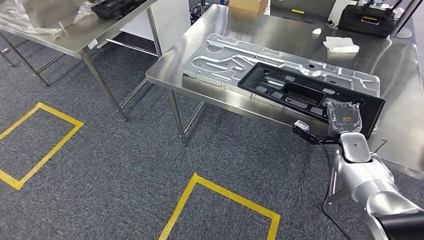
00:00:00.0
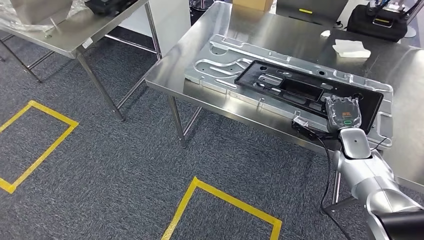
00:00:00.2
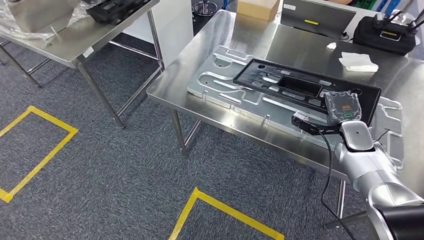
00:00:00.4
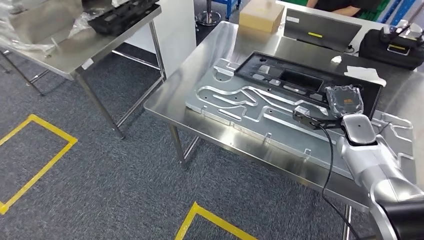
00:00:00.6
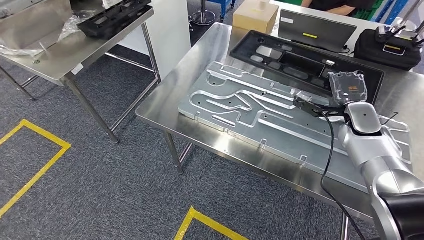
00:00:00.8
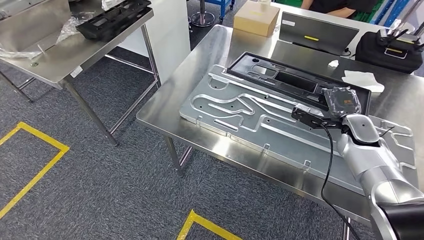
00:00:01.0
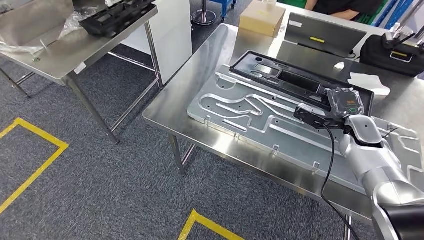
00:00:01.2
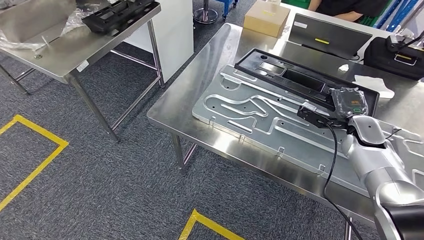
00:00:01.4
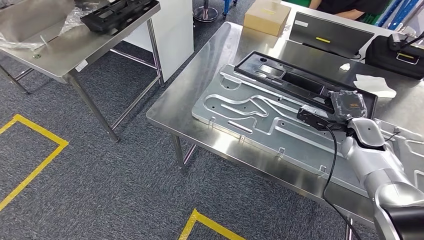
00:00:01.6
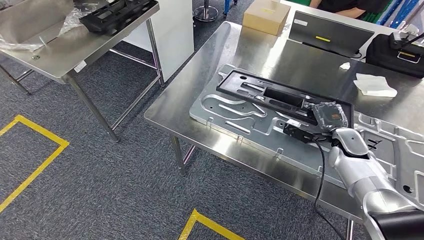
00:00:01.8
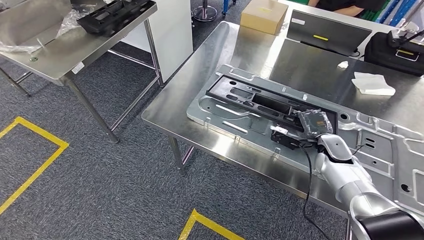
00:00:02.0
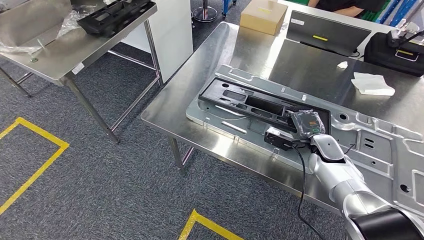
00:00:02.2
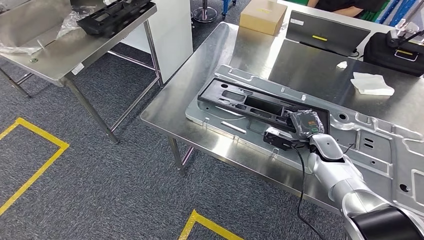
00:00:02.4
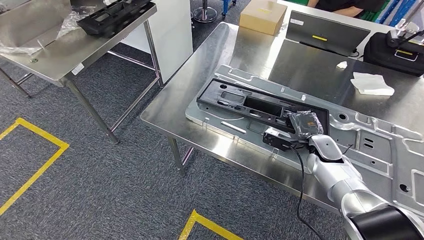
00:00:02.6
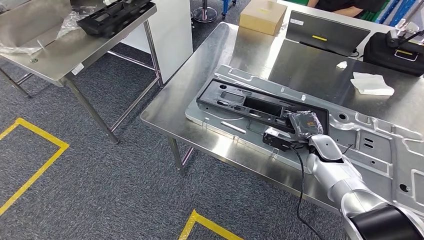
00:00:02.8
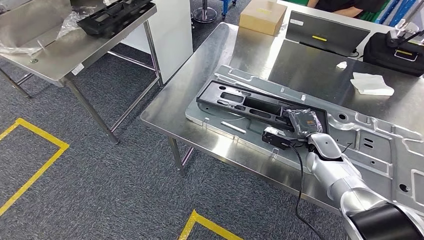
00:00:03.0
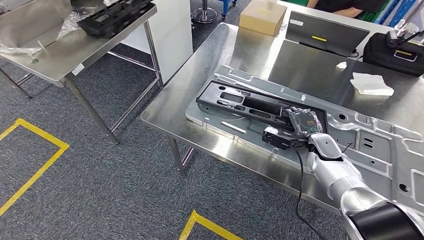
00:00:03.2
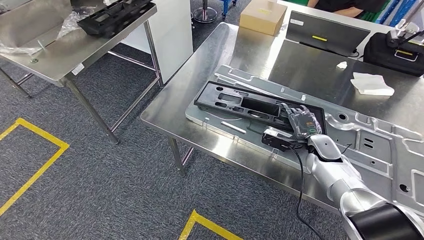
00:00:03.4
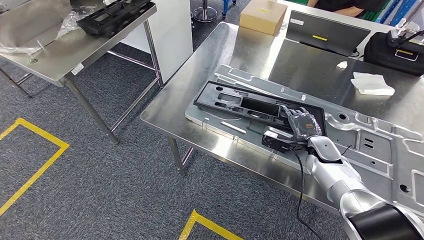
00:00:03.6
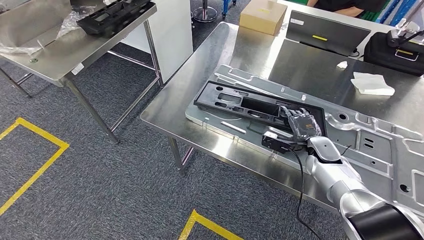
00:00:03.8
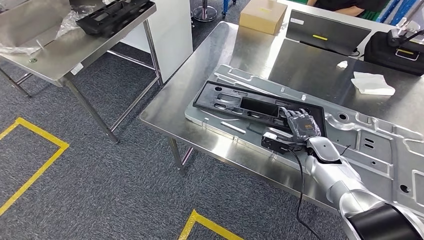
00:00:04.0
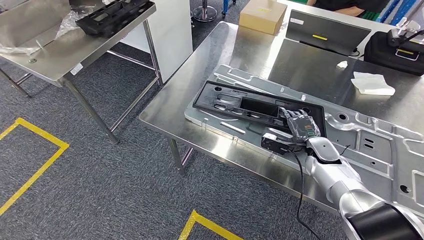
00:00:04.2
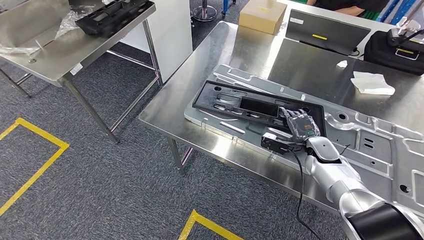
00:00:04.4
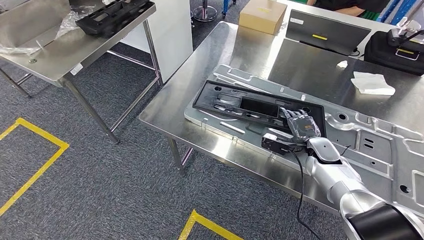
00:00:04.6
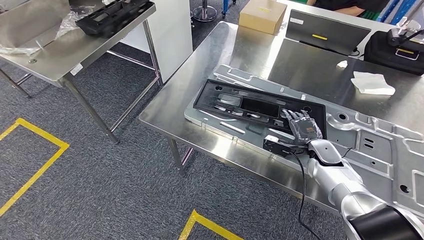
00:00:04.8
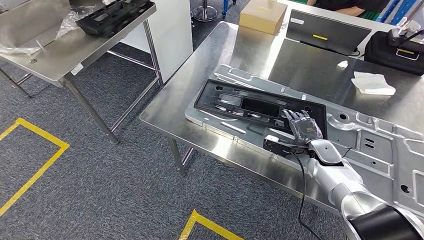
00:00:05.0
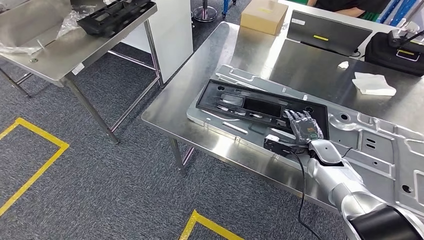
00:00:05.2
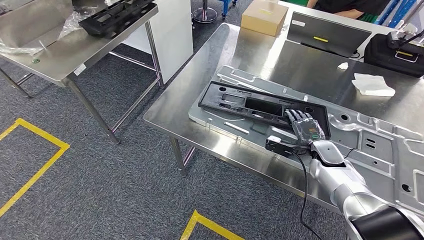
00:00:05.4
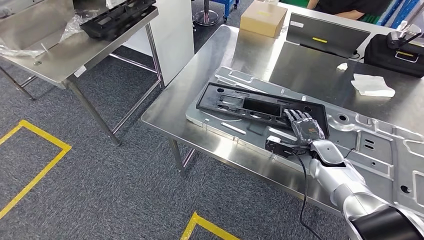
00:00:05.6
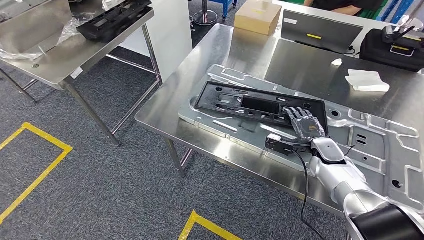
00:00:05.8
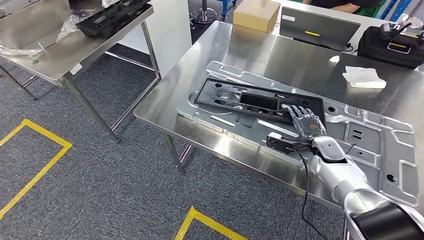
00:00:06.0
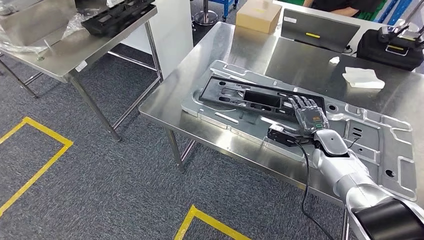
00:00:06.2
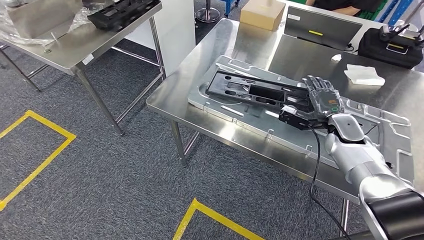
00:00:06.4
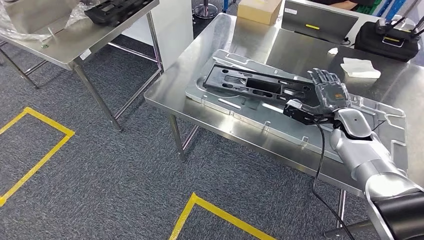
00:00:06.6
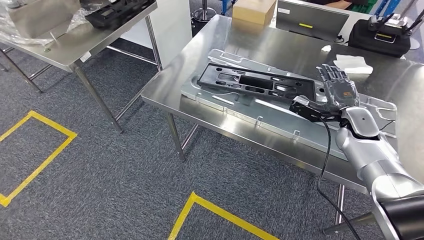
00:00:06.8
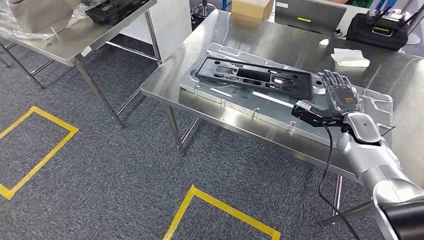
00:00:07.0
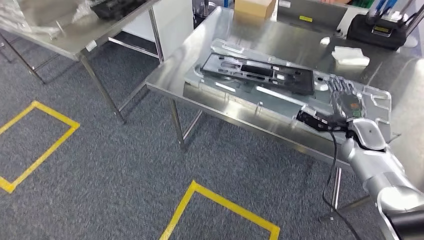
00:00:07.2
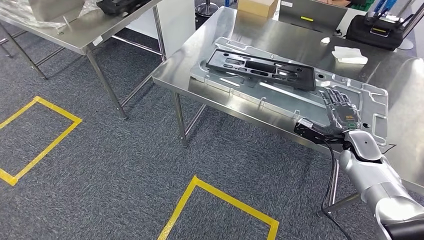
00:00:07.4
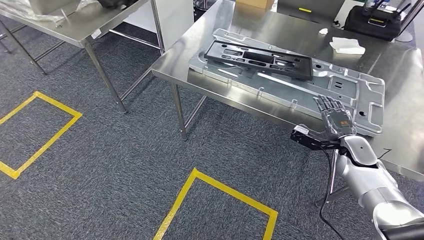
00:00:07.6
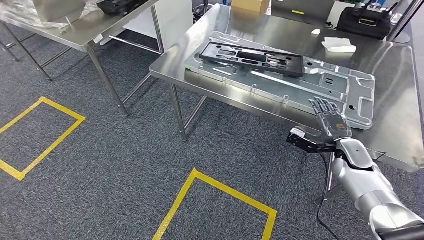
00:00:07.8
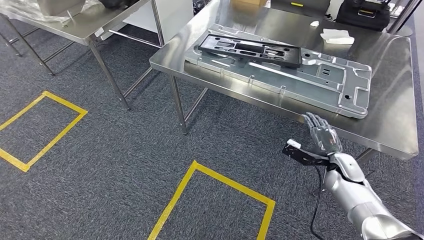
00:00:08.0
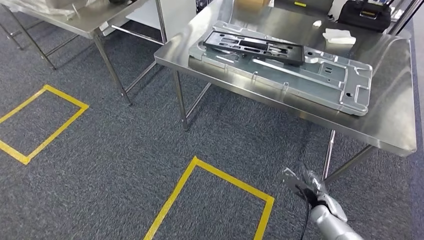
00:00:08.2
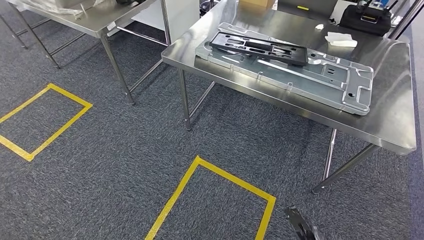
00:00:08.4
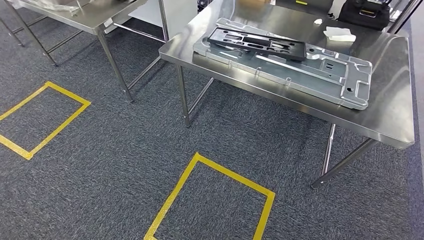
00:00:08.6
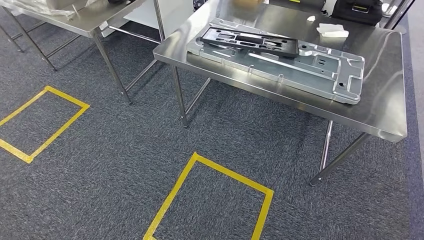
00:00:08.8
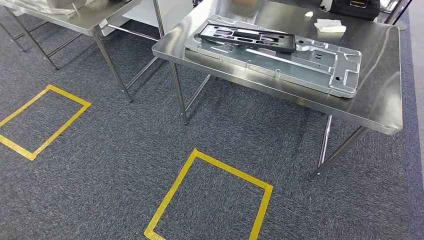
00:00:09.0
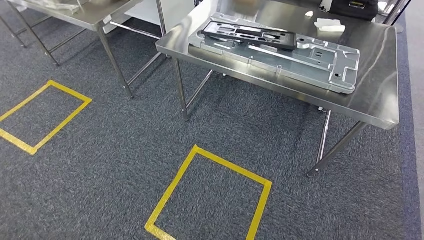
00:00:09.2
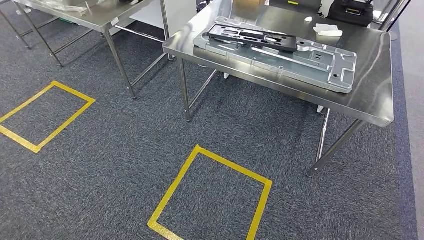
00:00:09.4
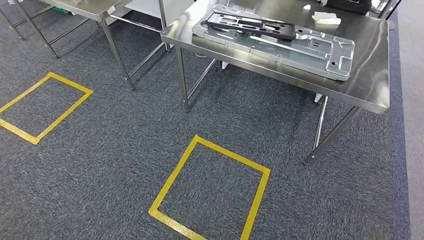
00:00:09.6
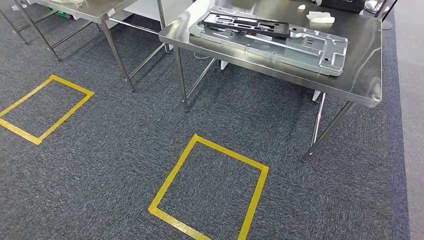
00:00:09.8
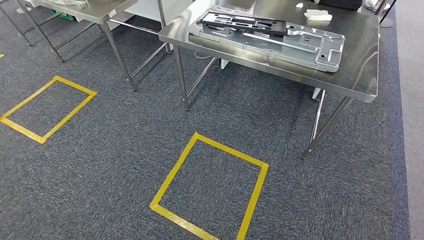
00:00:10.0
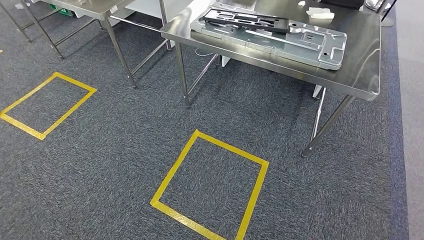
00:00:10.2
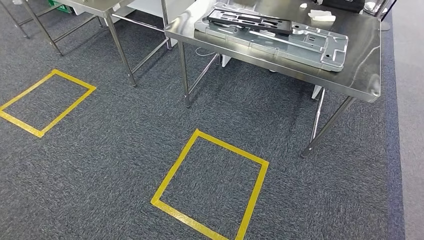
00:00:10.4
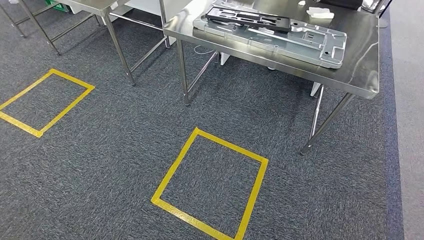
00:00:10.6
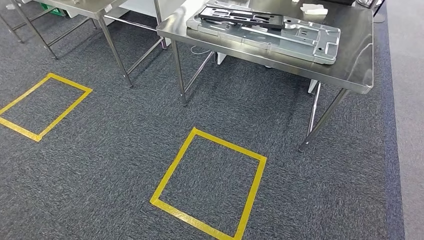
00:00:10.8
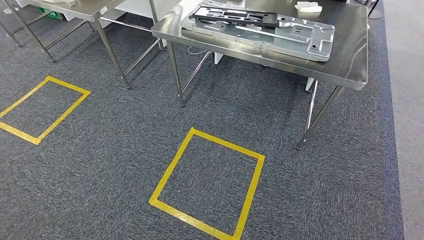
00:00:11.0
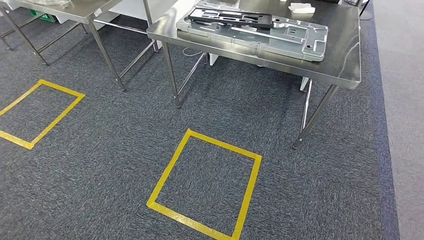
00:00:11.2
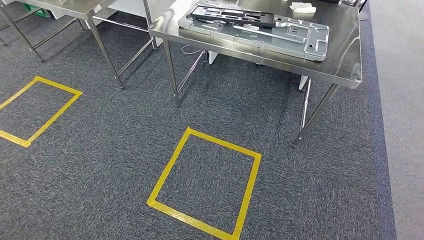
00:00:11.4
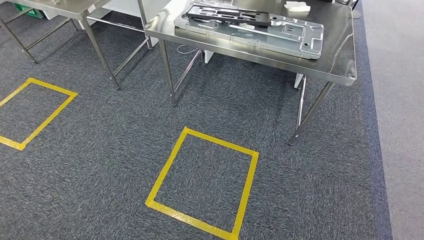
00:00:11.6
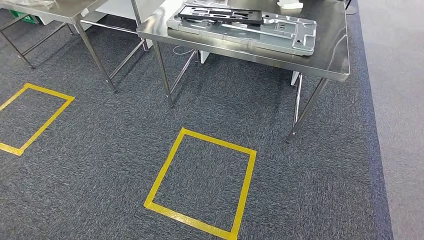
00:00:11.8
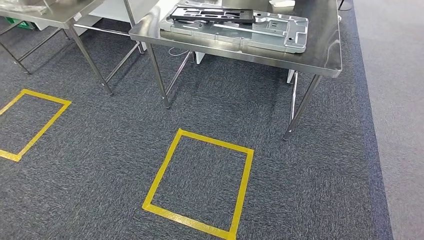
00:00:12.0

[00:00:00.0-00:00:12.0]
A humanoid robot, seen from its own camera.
Step, 00:00:01.8 to 00:00:07.8: Insert the large material into the corresponding slot on the workbench.
00:00:03.0 to 00:00:04.4: The two hands keep their place.

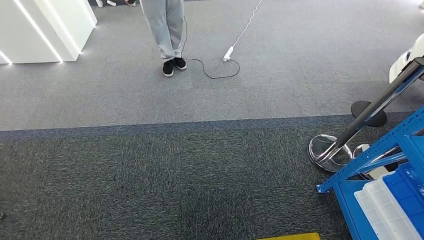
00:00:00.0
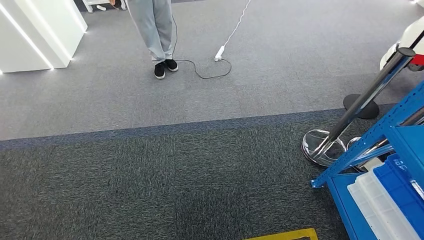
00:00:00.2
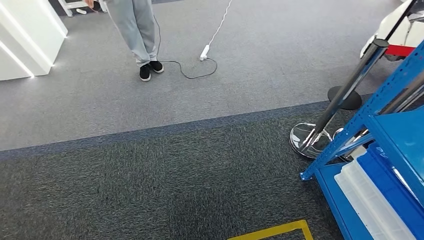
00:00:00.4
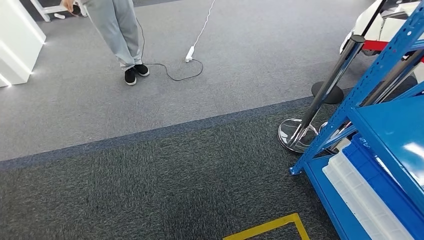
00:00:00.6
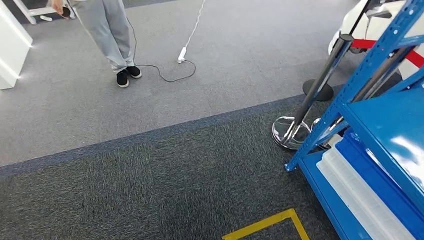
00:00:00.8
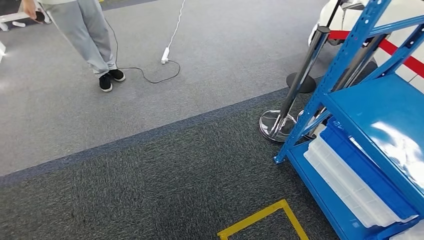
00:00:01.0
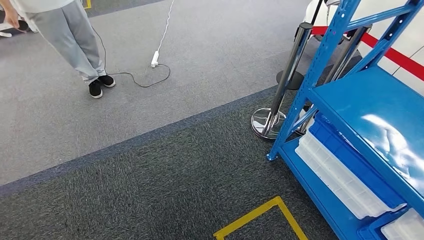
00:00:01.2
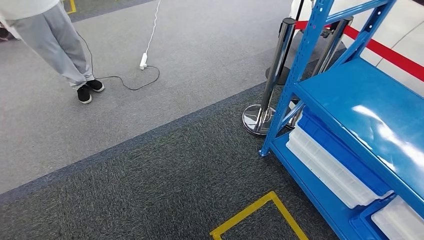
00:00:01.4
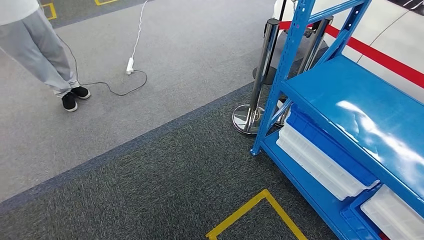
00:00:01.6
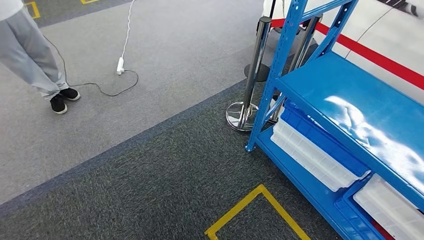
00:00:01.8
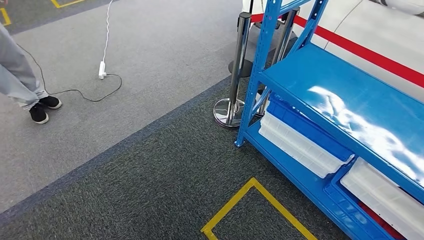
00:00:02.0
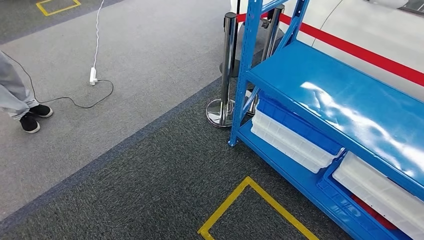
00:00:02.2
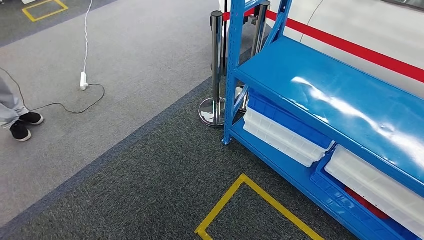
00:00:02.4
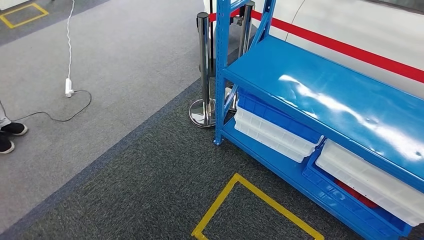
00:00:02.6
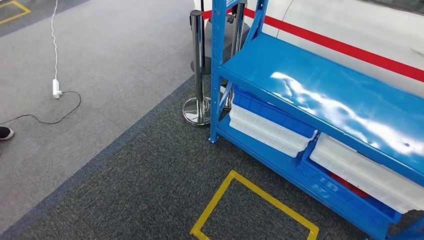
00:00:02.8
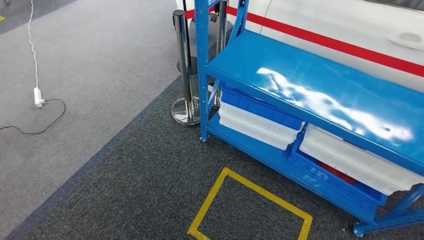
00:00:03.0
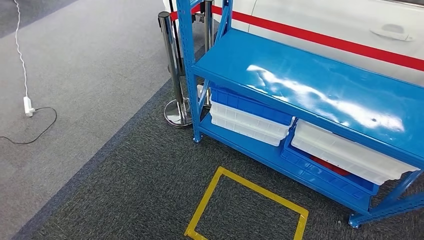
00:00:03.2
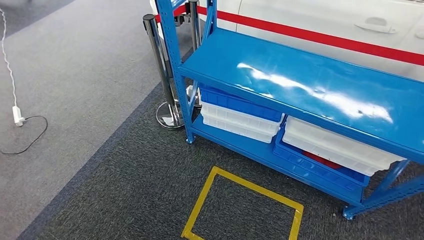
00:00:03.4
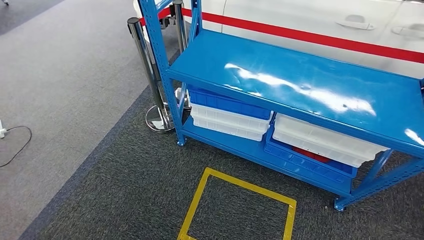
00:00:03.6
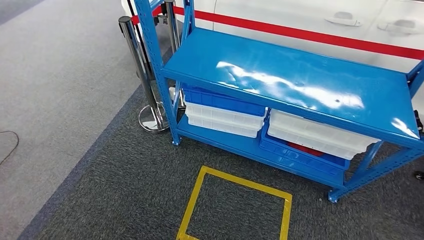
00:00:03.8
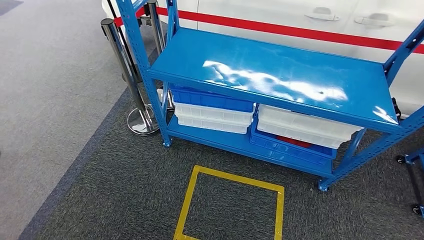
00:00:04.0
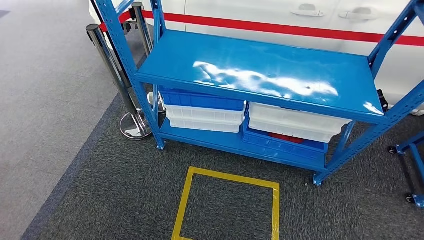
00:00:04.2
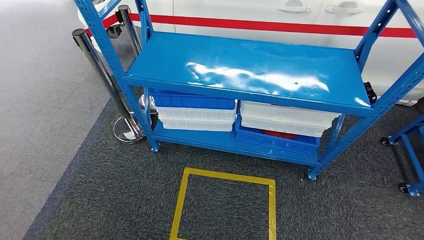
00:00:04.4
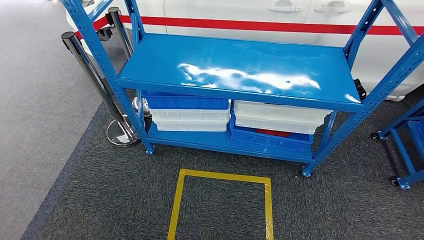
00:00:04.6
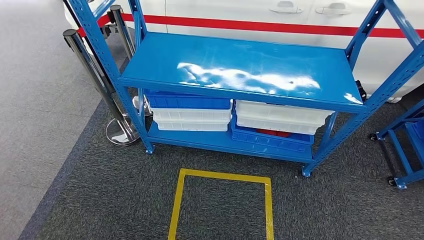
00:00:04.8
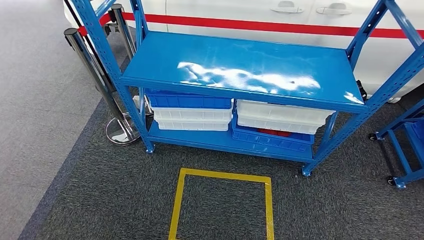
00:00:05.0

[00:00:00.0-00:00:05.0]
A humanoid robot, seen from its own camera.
Step, 00:00:00.0 to 00:00:05.0: Move to the initial position of the shelf.
